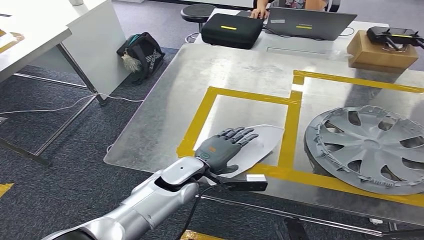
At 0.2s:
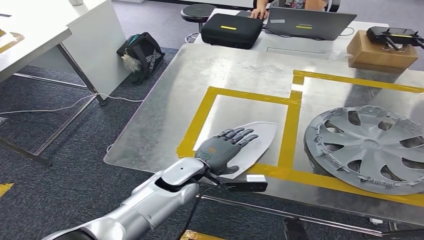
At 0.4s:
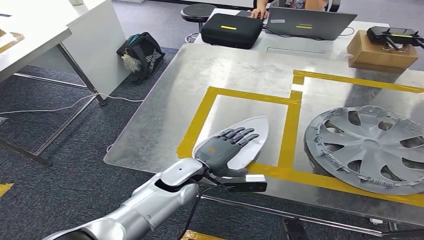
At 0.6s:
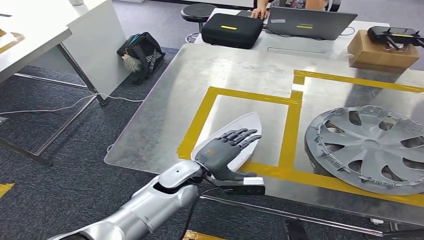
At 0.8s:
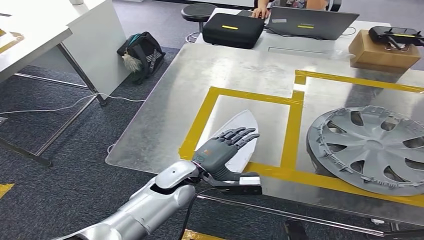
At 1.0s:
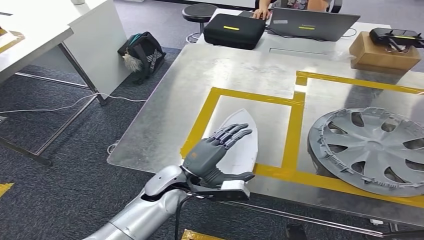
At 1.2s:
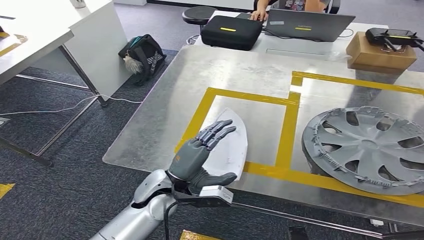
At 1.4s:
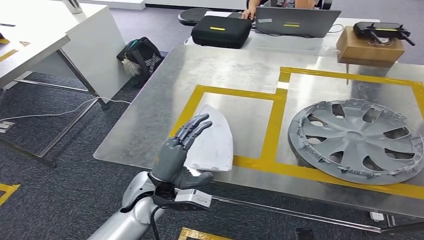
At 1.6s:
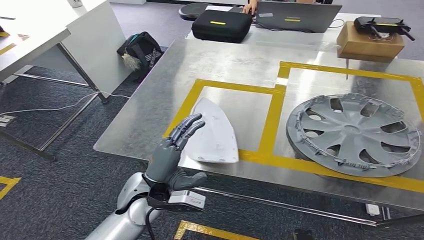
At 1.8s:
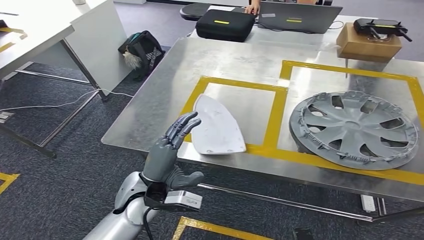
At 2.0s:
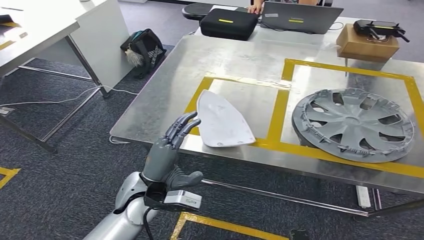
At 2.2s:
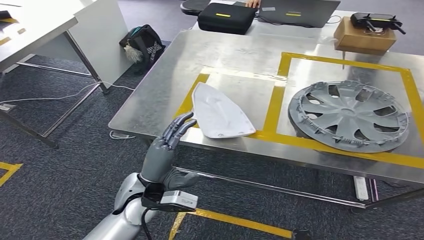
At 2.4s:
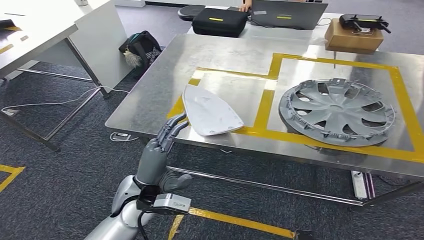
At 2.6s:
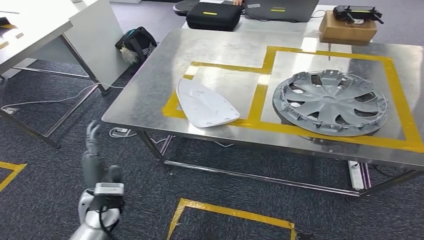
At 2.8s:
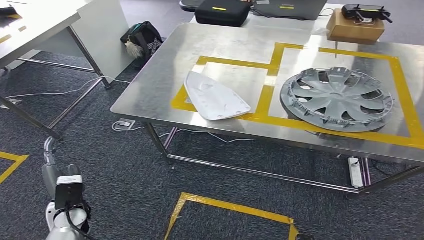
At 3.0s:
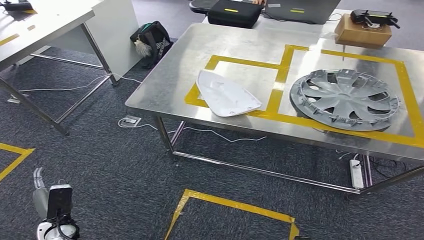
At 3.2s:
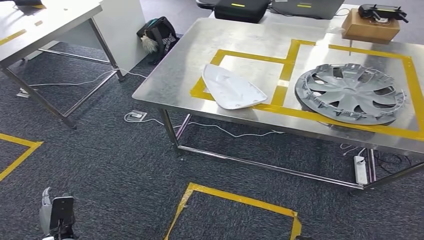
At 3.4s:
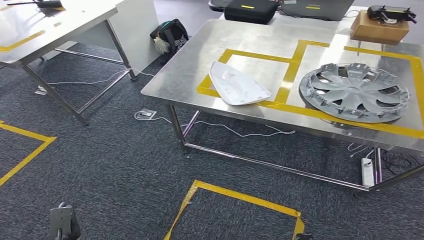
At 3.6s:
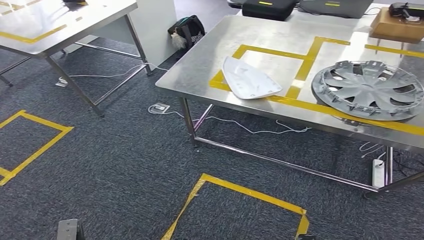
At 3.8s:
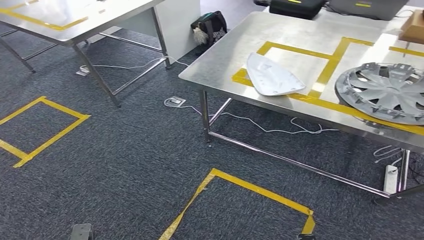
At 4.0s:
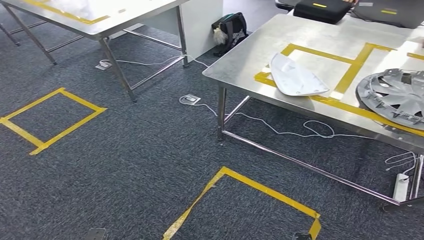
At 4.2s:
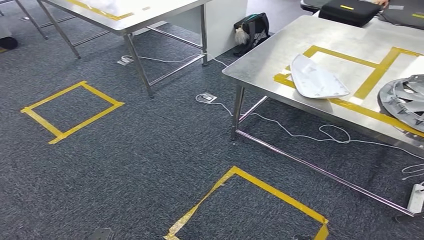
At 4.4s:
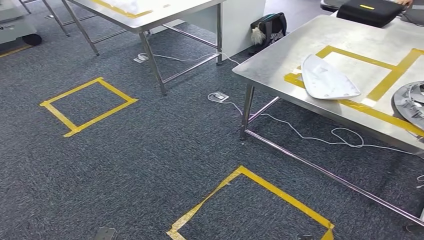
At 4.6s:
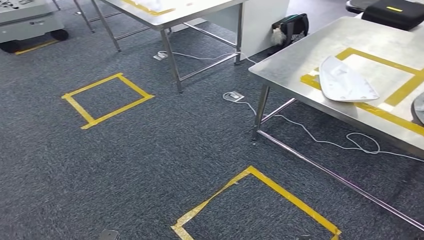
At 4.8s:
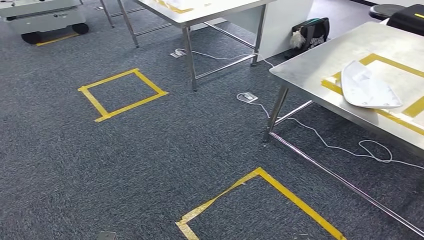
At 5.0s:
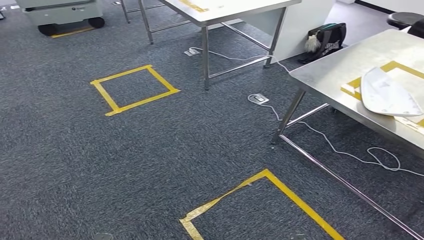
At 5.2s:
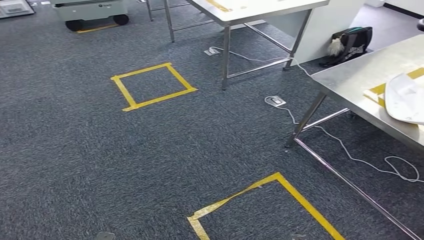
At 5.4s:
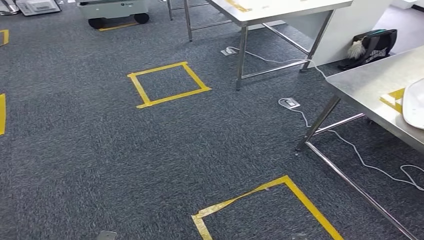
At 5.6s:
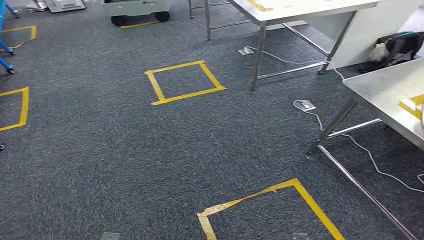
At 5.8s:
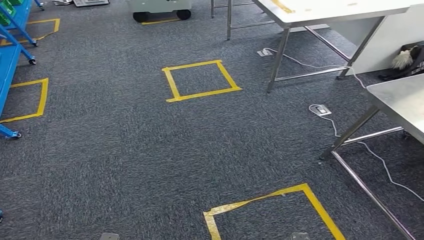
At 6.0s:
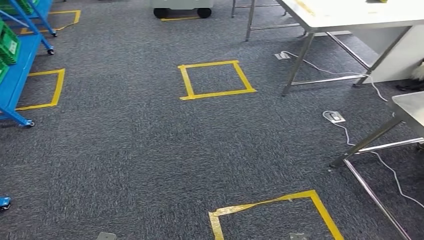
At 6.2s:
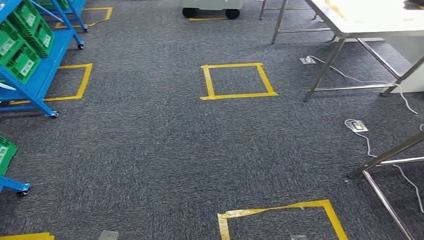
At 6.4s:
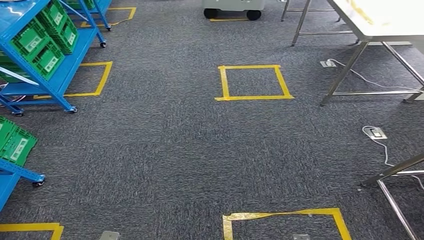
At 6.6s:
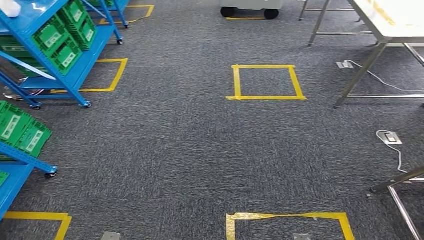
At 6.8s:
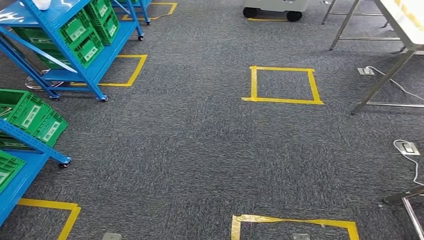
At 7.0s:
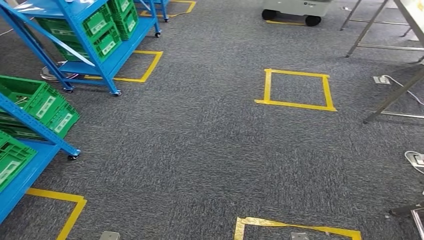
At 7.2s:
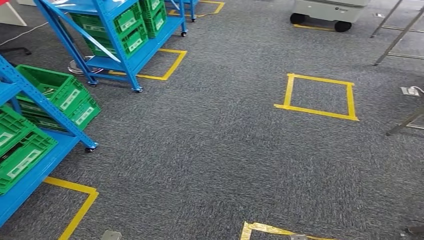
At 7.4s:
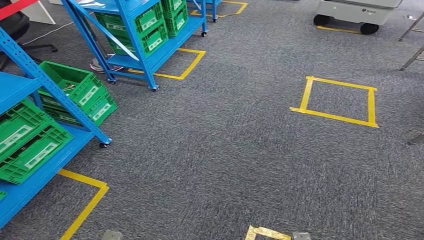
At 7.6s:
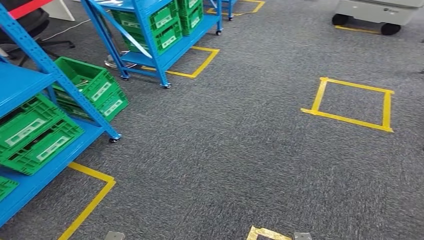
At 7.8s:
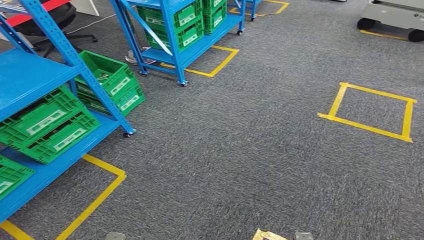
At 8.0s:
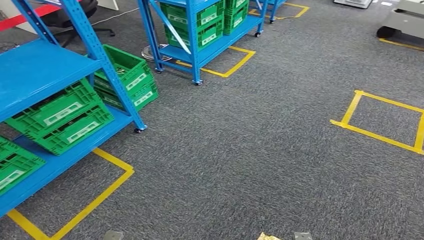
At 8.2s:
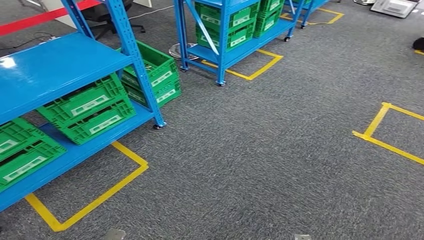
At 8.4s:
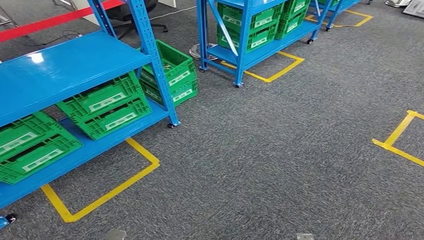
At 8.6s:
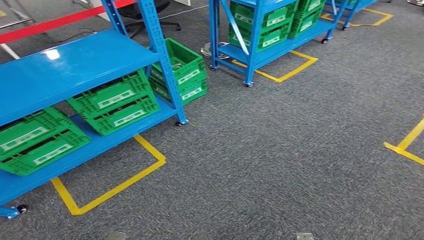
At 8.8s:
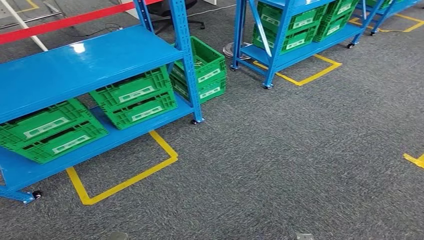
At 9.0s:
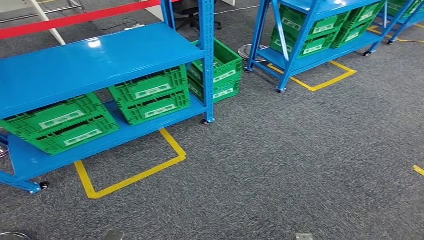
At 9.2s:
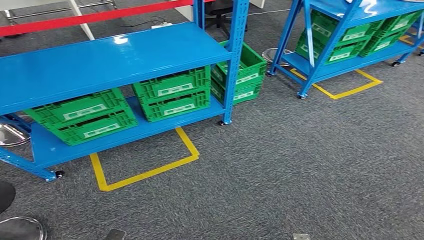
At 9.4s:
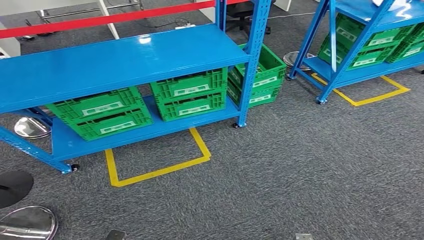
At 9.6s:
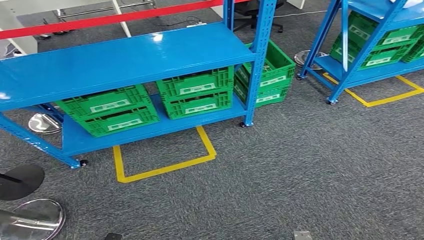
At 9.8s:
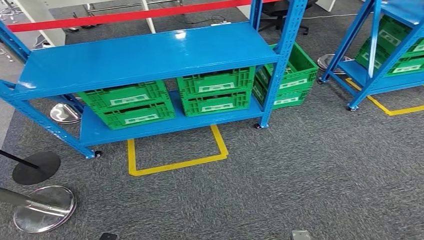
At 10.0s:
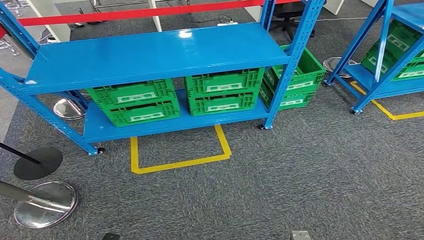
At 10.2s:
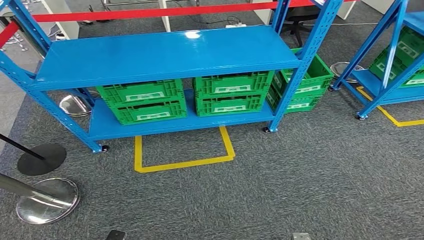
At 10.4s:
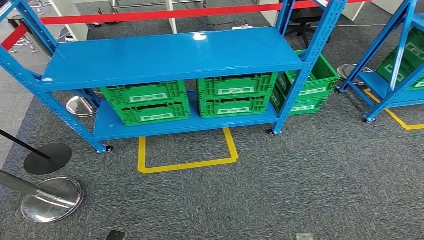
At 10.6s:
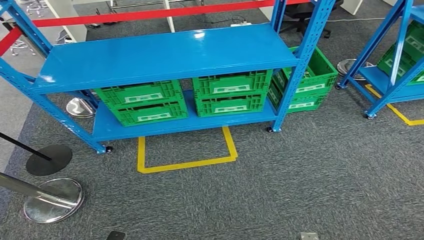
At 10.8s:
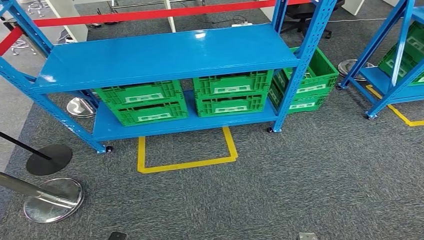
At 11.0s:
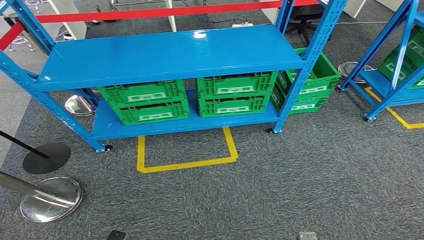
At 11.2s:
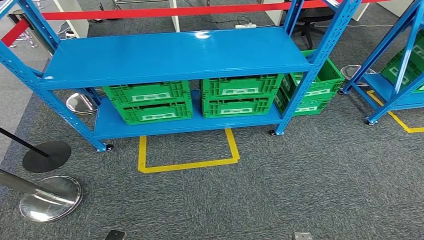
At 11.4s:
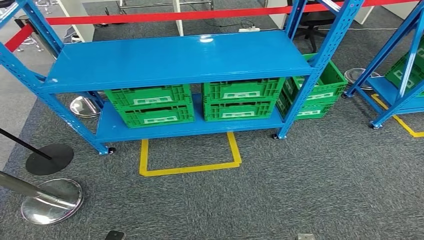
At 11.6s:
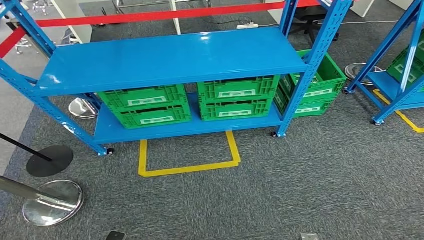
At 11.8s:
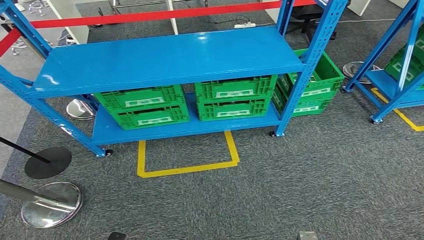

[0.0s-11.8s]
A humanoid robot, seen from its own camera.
Step, 0.0s to 2.6s: Insert the small parts into the corresponding holes on the workbench.
10.4s to 11.8s: The two hands keep their place.

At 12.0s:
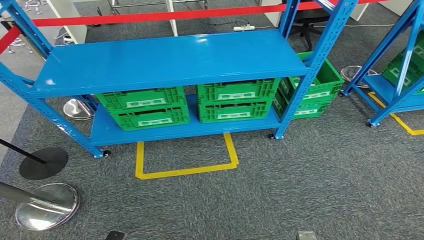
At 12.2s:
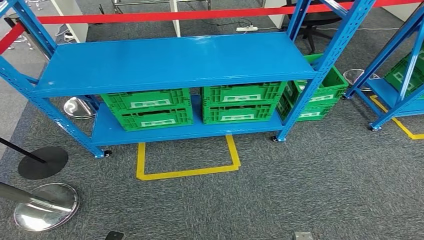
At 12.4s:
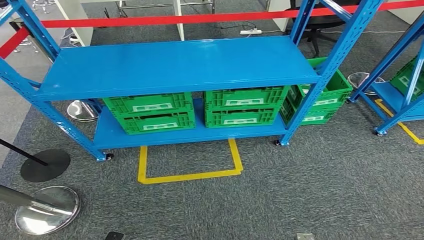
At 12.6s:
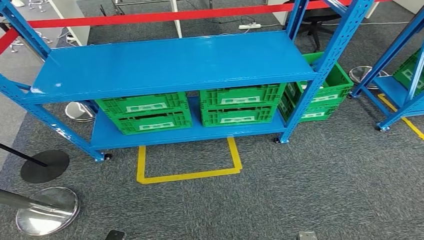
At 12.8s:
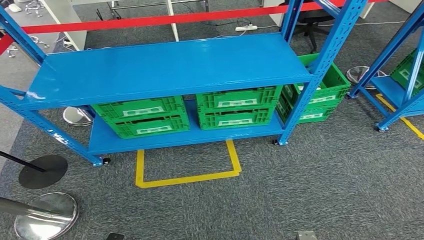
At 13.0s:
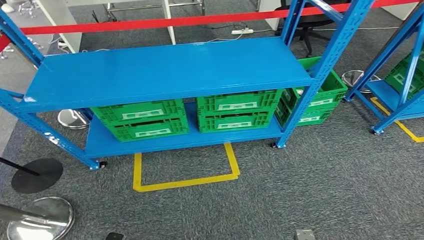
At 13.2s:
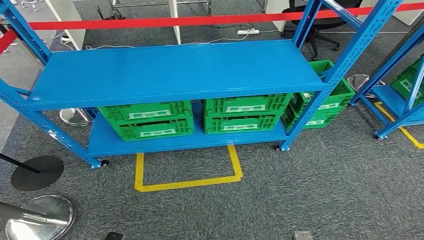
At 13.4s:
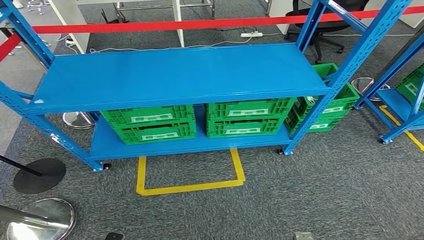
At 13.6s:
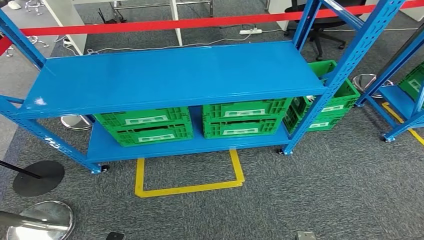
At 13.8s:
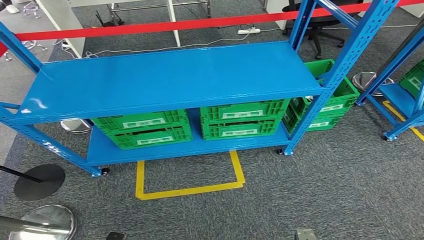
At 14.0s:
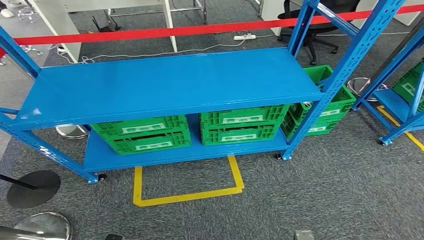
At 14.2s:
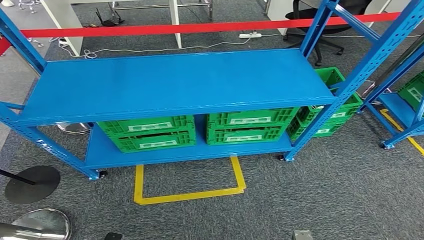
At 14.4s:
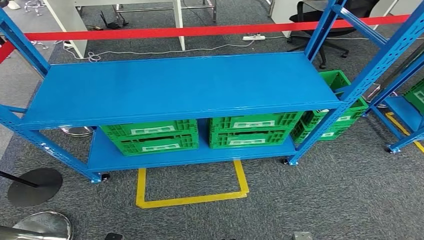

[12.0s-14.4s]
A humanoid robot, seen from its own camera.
Step, 12.0s to 14.4s: Move to the initial position at the workbench.
